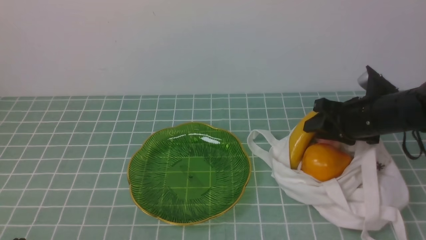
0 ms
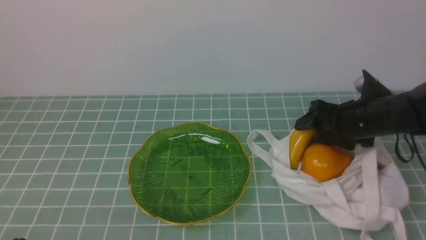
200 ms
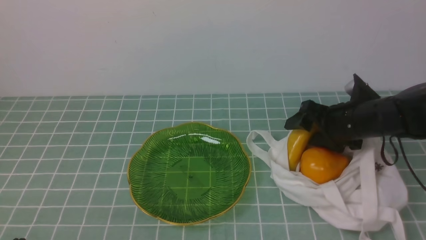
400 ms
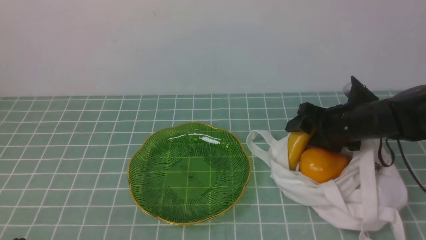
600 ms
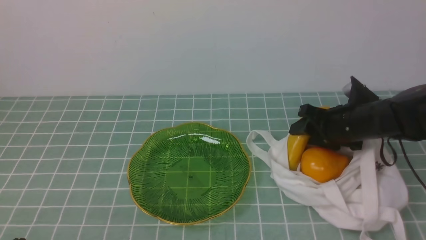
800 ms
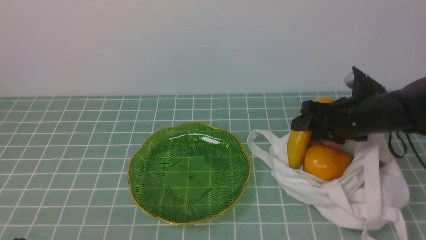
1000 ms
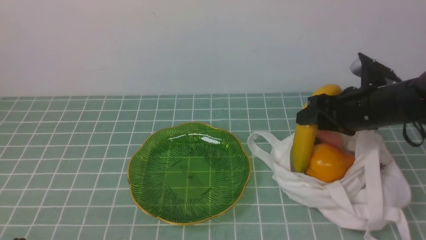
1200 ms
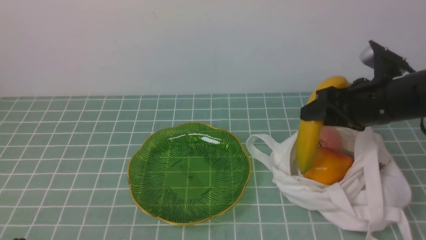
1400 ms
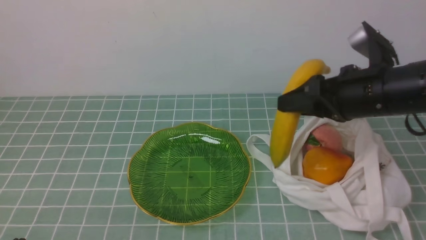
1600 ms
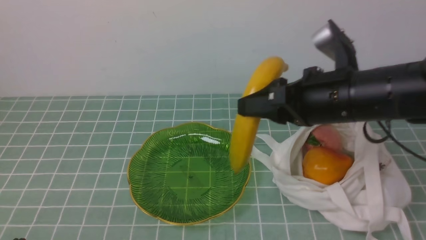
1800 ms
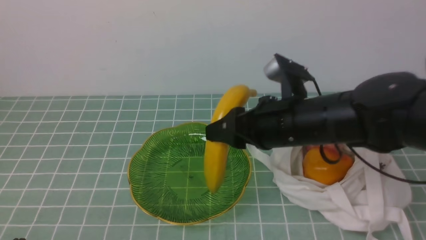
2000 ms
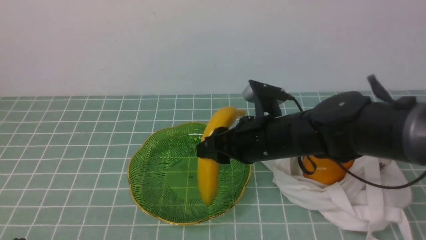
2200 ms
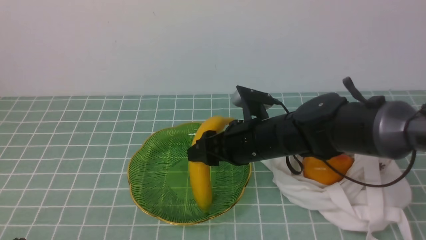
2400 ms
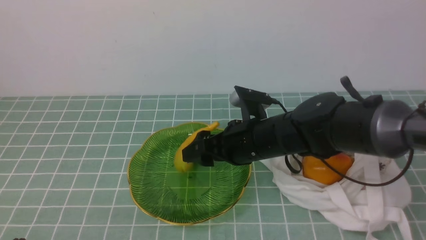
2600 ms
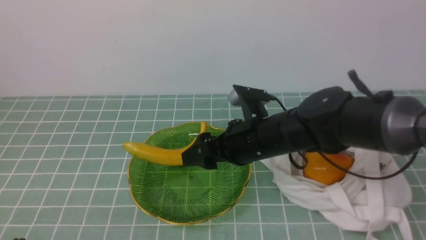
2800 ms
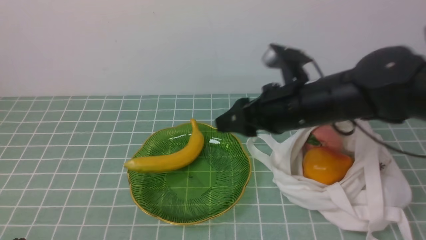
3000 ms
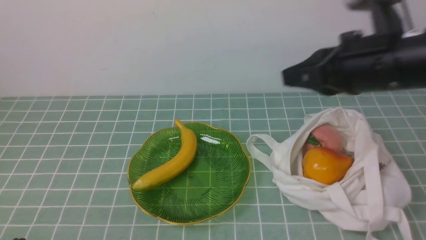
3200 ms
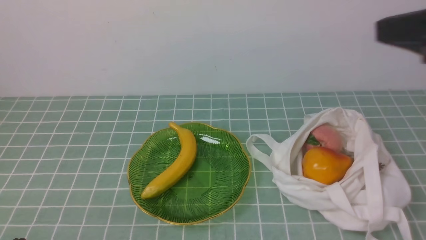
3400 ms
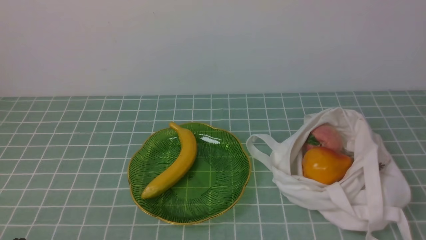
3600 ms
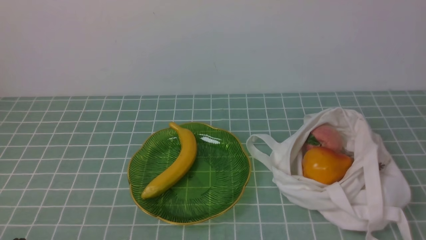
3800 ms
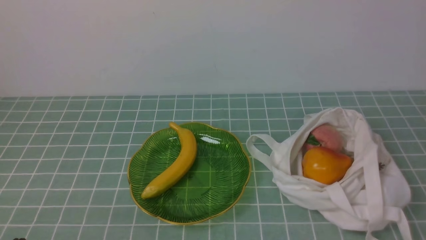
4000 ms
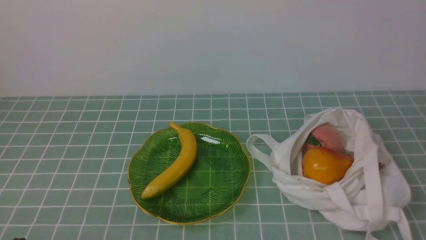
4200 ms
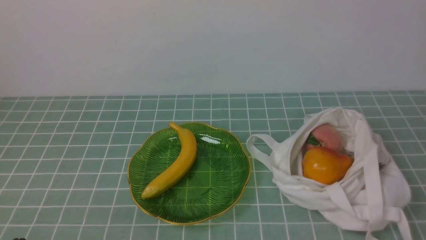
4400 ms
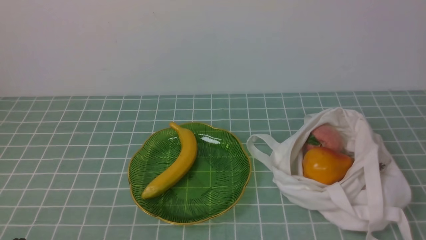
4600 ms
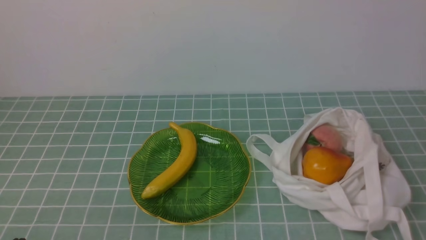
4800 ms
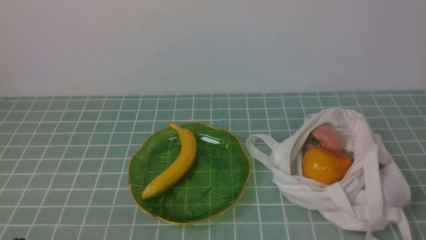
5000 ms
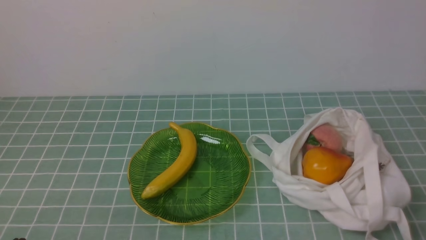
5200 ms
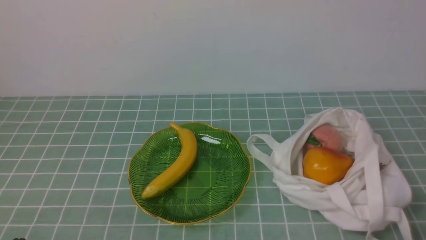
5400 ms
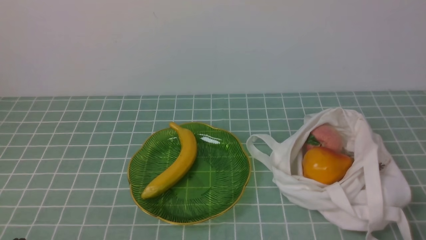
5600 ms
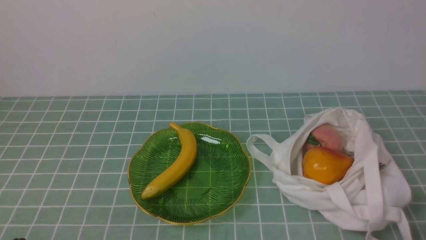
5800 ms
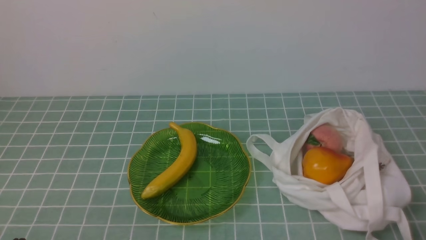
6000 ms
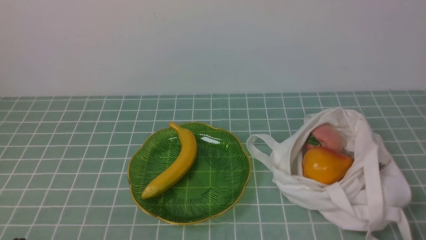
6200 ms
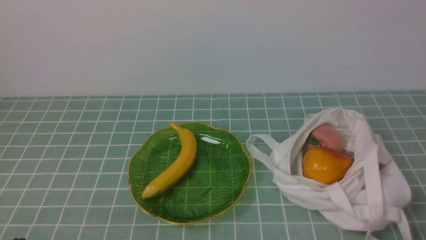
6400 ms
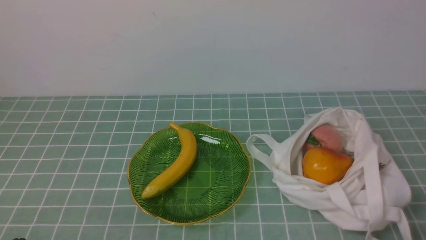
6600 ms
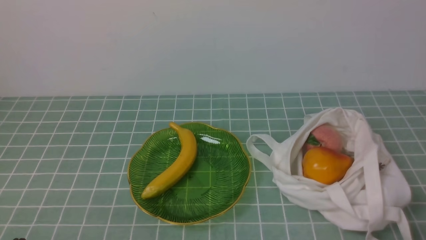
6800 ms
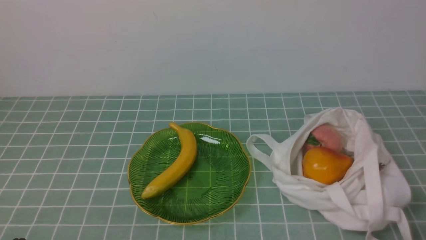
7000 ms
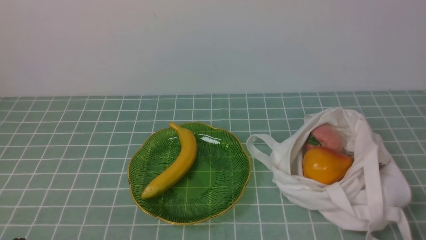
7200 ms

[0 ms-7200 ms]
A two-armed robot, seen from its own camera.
Step, 1400 ms to 2600 ms: use the right arm to put the banana into the empty plate on the right.
0 ms to 1400 ms: The right gripper is displaced upward by some 5 cm.
1400 ms to 2800 ms: The right gripper goes approximately 15 cm to the left.
2800 ms to 4400 ms: The right gripper is displaced backward, to the right and upward by approximately 40 cm, and closes.
5800 ms to 7200 ms: Both grippers stay put.
